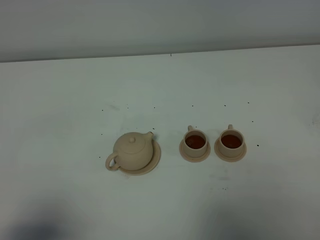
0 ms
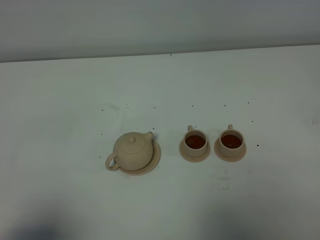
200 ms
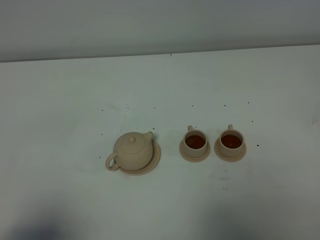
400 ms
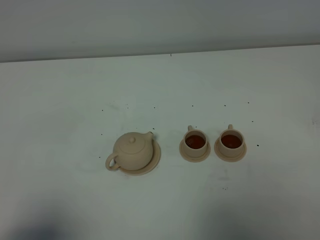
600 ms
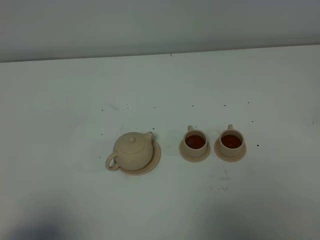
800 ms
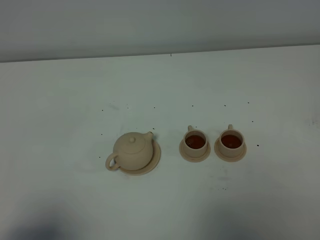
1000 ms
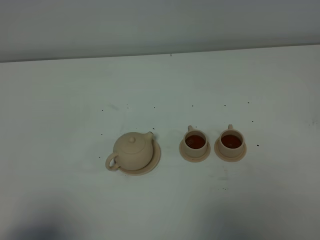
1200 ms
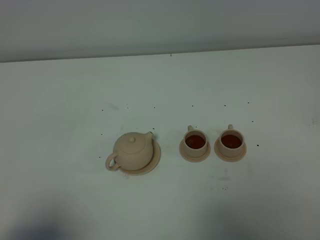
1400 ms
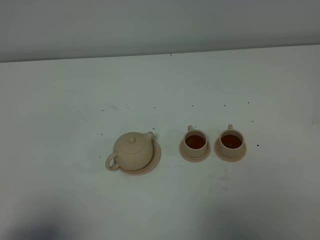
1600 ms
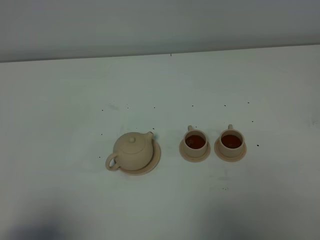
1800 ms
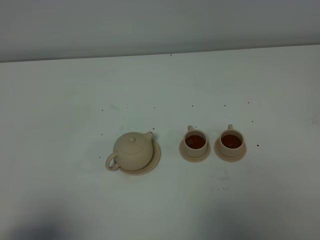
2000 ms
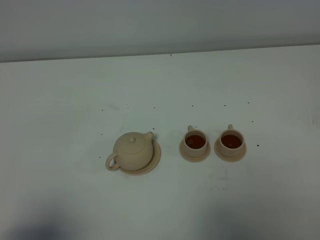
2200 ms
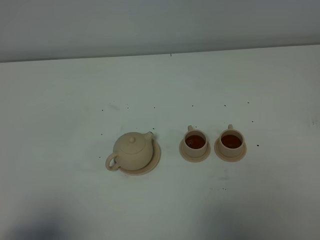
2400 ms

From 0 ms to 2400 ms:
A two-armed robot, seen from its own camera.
Task of the whole recording: grasp the brown teapot and pour the tea into the two brown teacups one by one, put the brown teapot back in its original place.
From 0 ms to 2400 ms: The two grippers keep their place.

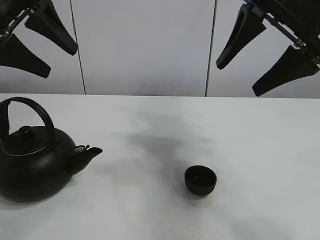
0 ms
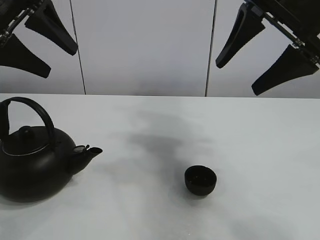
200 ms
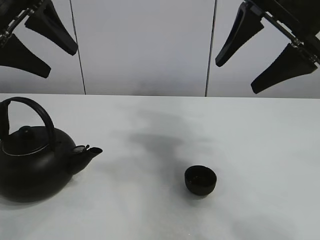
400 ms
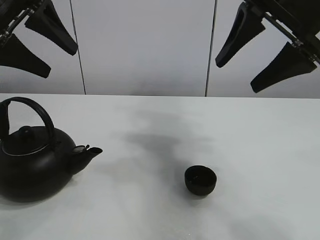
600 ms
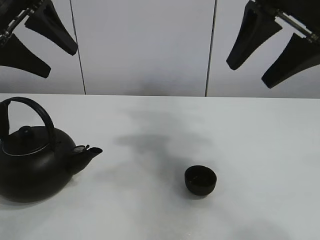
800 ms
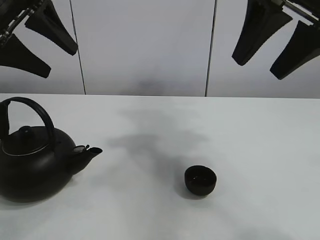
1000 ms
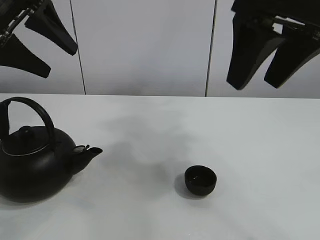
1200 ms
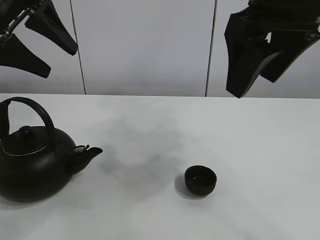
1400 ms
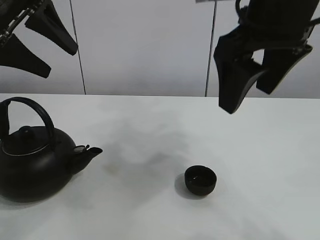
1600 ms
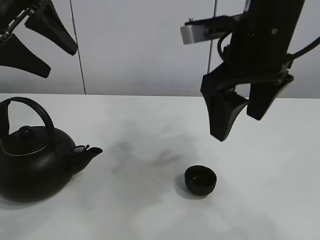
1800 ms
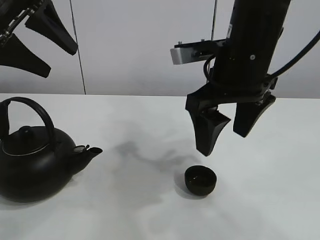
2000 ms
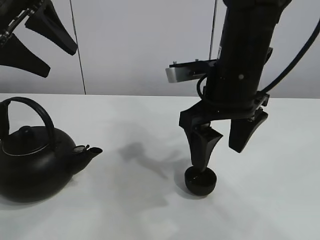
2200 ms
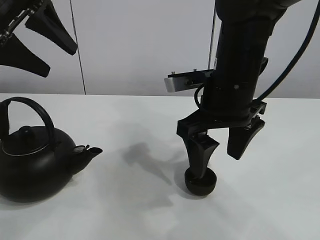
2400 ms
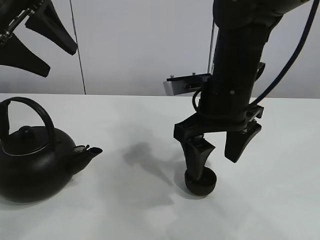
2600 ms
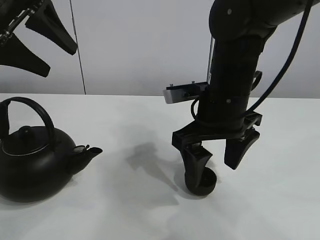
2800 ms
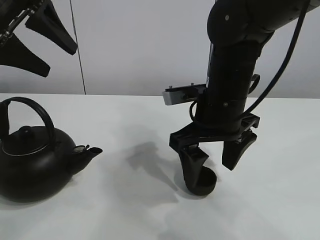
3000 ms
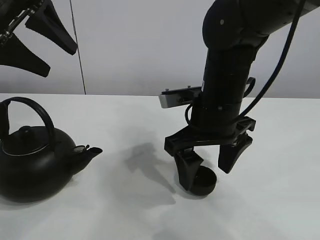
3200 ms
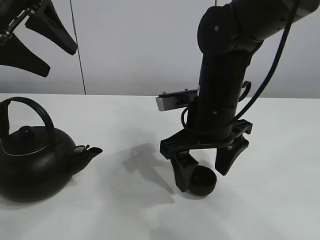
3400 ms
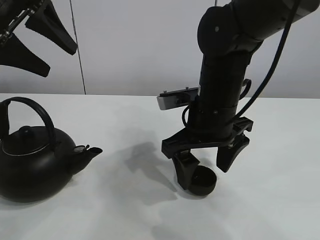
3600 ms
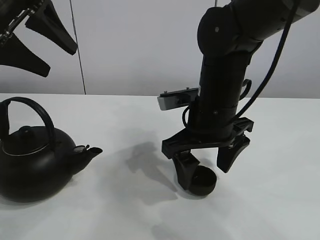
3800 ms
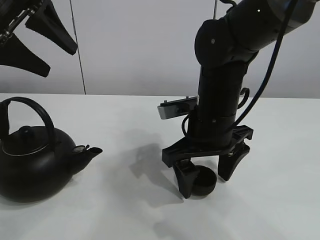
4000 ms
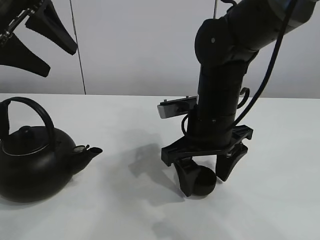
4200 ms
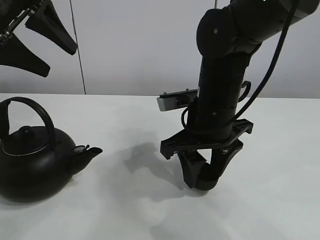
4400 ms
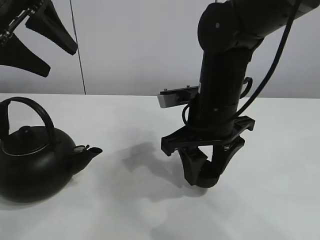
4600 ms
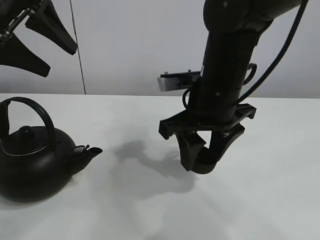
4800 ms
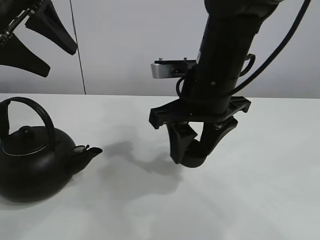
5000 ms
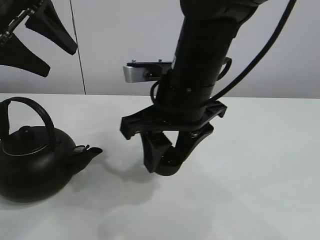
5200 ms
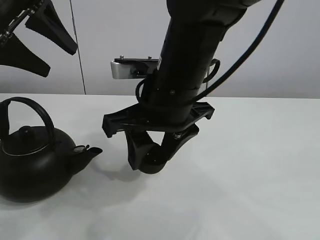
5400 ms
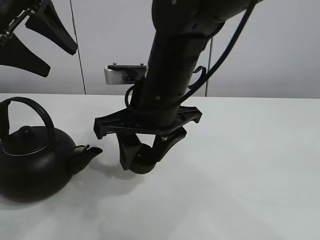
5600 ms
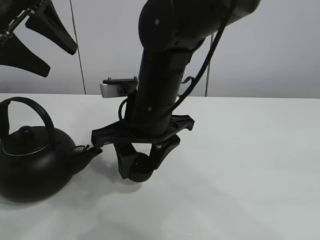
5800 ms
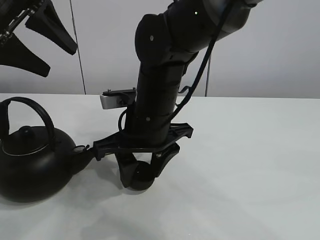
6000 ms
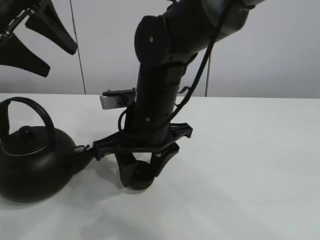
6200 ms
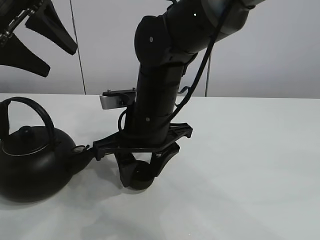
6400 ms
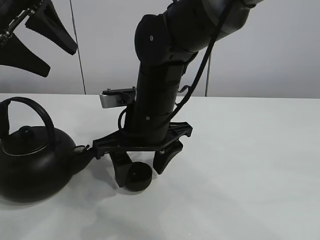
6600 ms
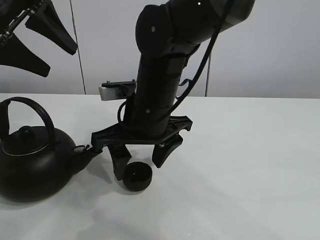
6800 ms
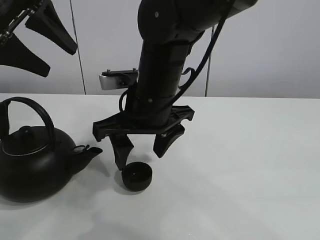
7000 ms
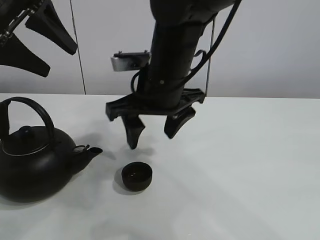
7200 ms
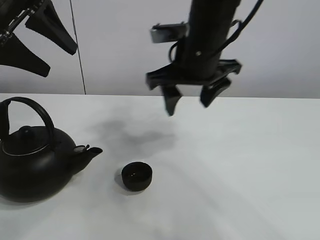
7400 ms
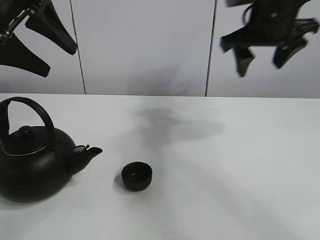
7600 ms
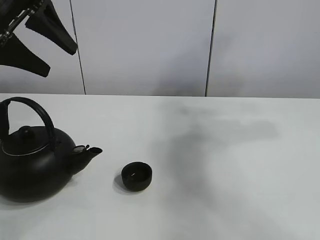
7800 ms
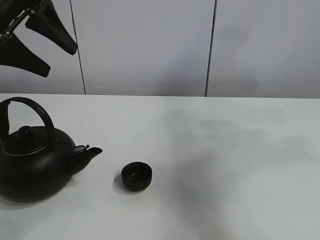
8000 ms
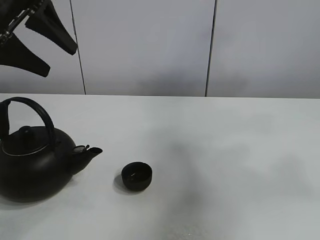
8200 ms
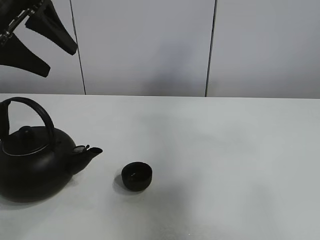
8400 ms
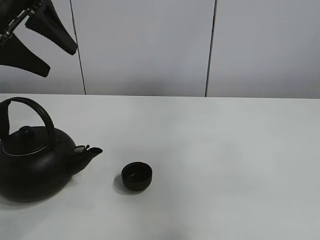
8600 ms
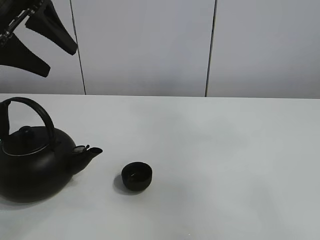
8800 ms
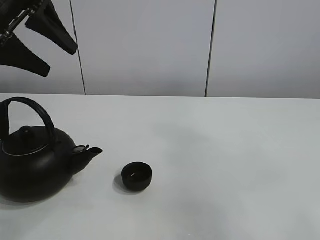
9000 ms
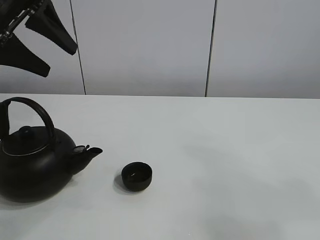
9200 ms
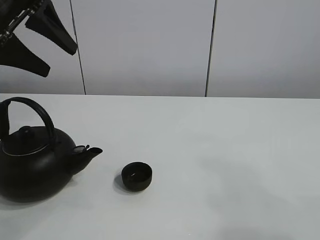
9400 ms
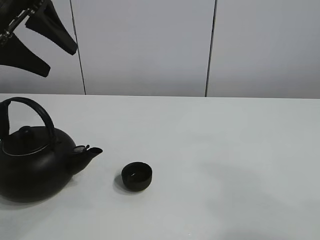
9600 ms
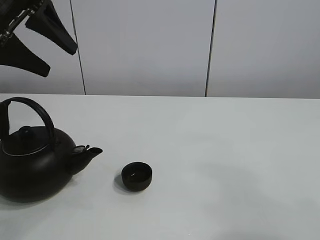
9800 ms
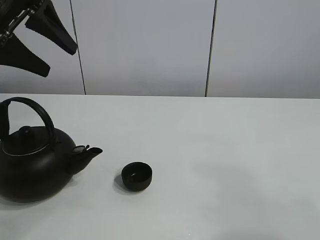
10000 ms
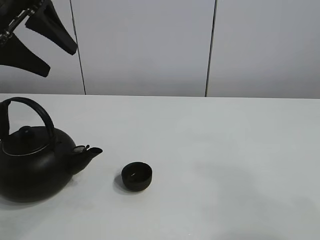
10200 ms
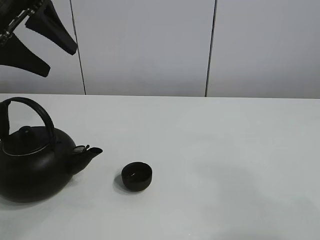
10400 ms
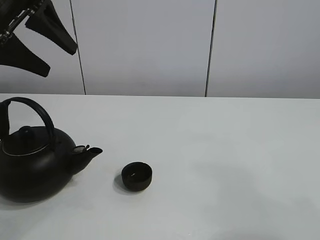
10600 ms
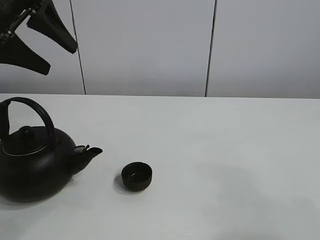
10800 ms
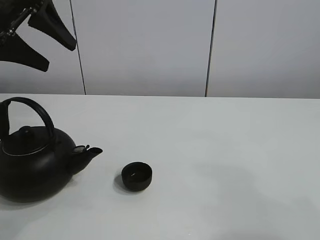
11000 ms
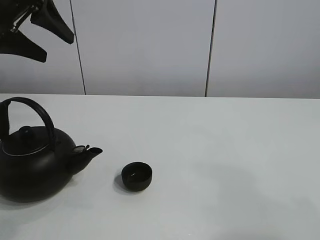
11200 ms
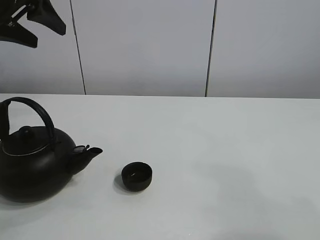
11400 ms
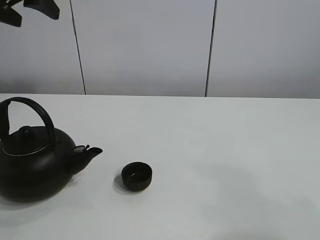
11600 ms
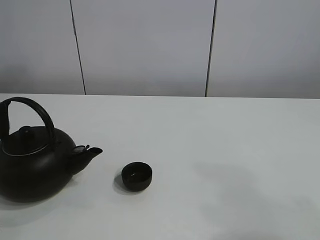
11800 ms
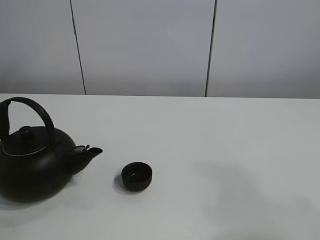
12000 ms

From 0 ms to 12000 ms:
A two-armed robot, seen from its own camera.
Task of the whole recording: pour tea into the teacup.
Step, from 0 ms to 4200 ms: Pick up the teacup with the right gripper.
Step, from 4600 ms to 6600 ms: Place the teacup in the center of view with the right gripper.
From 1600 ms to 3000 ms: The right gripper shifts approximately 15 cm downward.
From 3000 ms to 4400 ms: The right gripper closes its fingers.
From 4400 ms to 6000 ms: The right gripper is displaced to the left by roughly 10 cm.
From 6000 ms to 7600 ms: The right gripper shifts about 25 cm to the right and upward, and opens up.
From 7600 ms to 9000 ms: The right gripper travels backward by about 40 cm.
From 9000 ms to 10400 ms: The right gripper travels downward by some 10 cm.
From 10400 ms to 12000 ms: The left gripper goes about 10 cm upward.

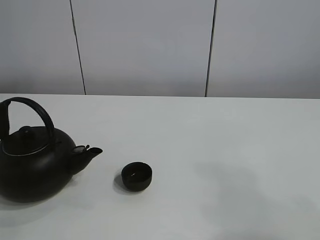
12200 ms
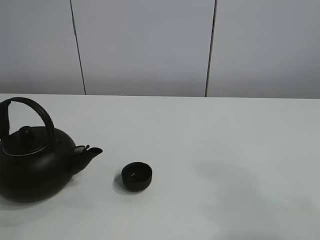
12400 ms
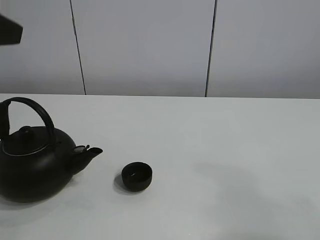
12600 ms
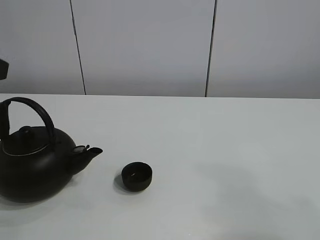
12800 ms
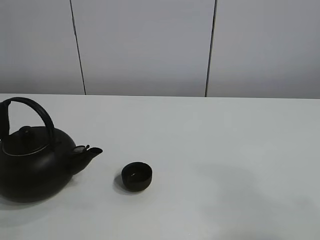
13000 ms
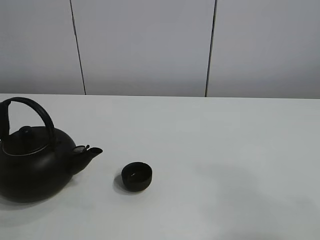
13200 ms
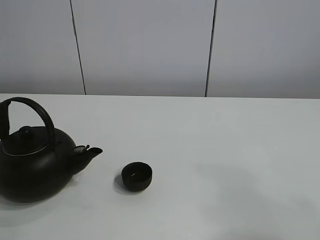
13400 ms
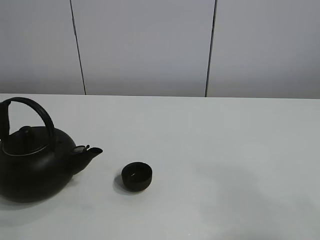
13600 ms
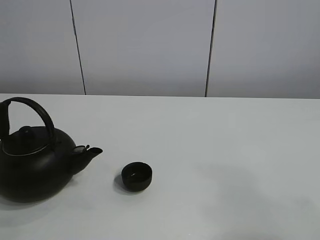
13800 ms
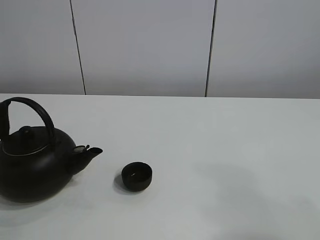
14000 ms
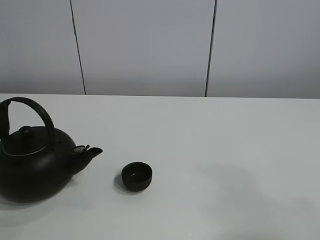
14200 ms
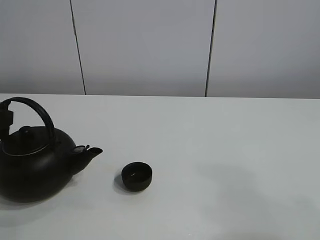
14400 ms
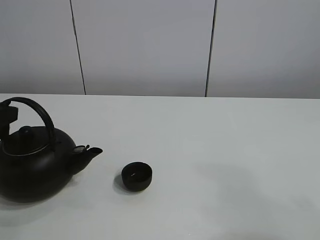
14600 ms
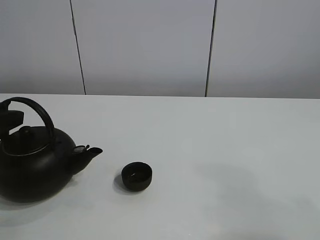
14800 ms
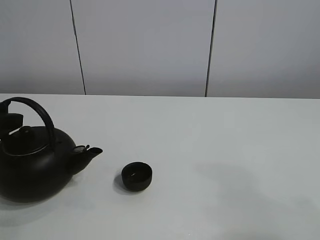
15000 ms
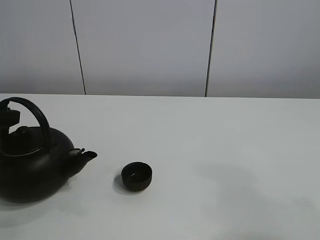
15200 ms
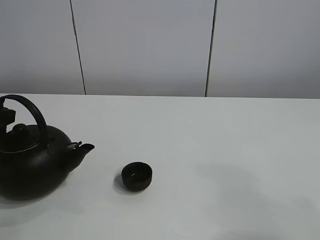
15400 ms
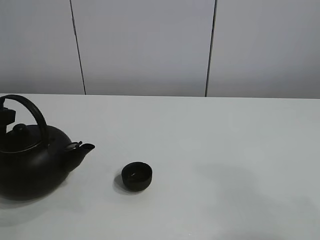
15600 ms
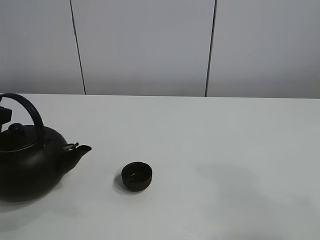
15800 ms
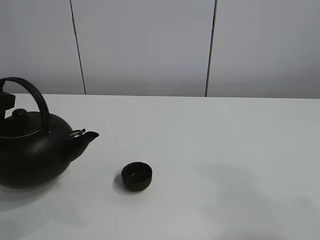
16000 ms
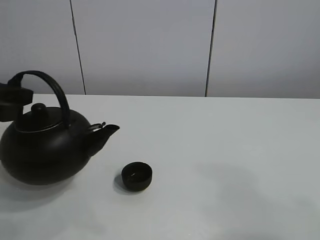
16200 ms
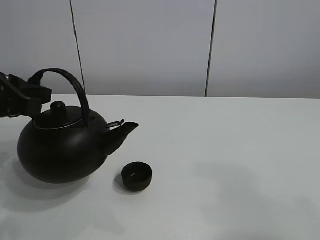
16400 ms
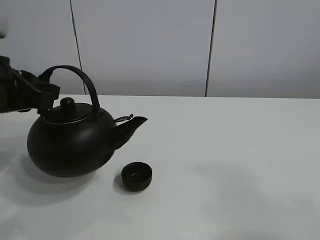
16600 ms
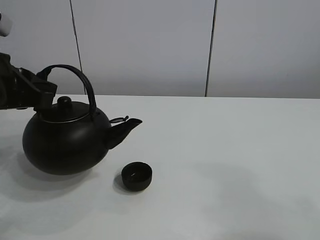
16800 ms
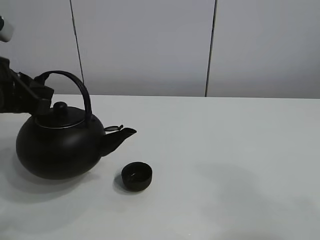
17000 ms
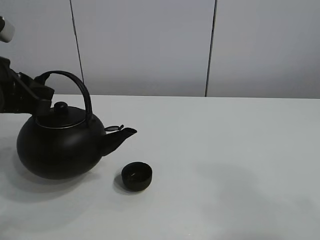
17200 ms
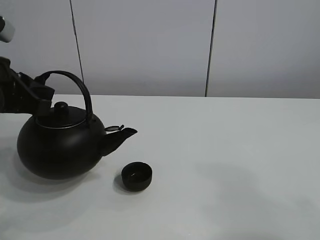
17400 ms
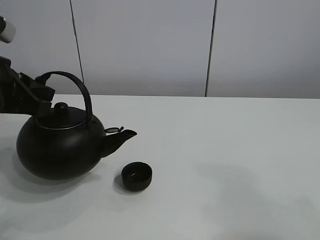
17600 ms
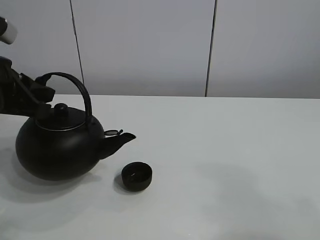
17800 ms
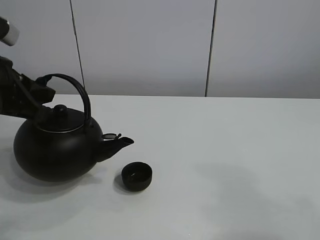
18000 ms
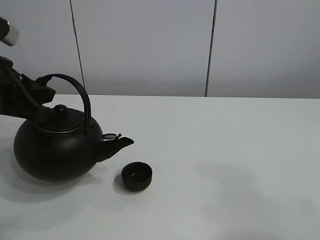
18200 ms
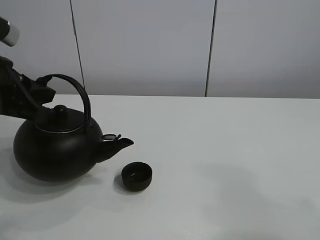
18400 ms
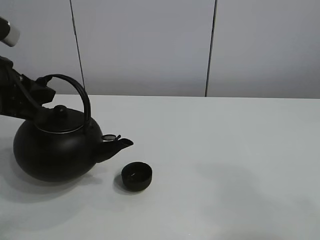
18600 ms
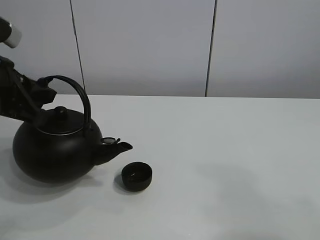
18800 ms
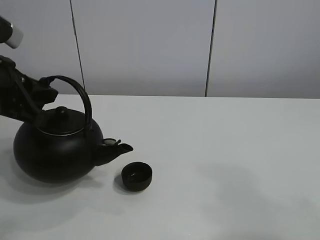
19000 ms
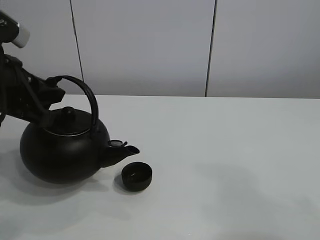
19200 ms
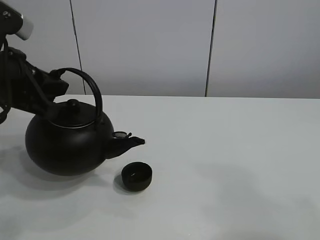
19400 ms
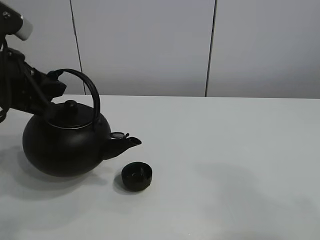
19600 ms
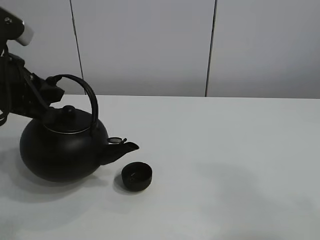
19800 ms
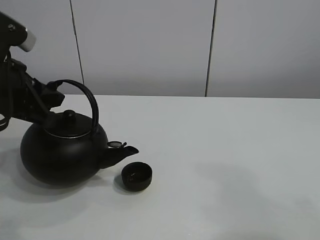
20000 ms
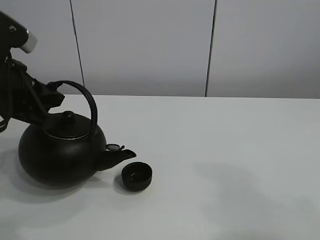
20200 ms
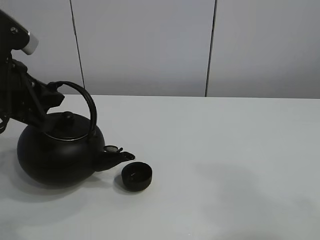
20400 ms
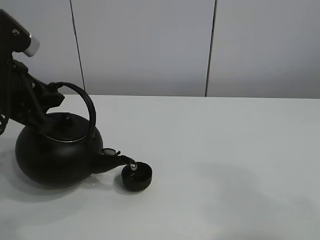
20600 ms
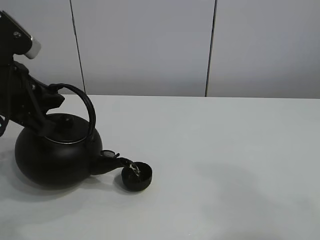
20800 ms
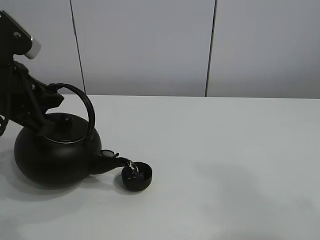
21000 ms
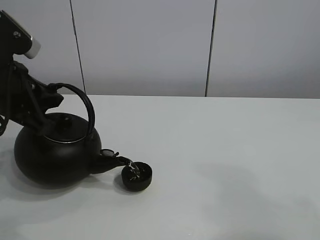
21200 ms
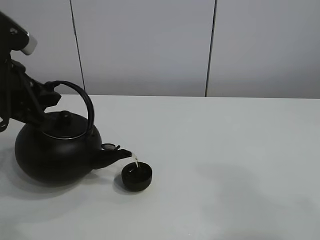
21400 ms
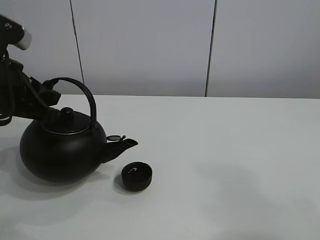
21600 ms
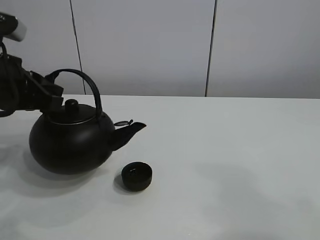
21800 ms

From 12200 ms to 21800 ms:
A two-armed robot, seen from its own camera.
Task of the whole recording: pour tea into the teacup.
Step, from 12200 ms to 15800 ms: Pick up the teapot with the left gripper.
Step, from 16000 ms to 21400 ms: Pour tea into the teacup with the left gripper.
From 13800 ms to 15400 ms: The left gripper is displaced downward and forward by some 10 cm, and closes up.
From 15400 ms to 17000 ms: The left gripper is displaced to the right and upward by roughly 10 cm.
From 17000 ms to 21800 ms: The grippers make only small movements.
